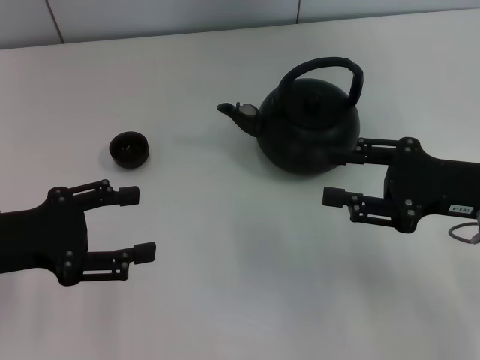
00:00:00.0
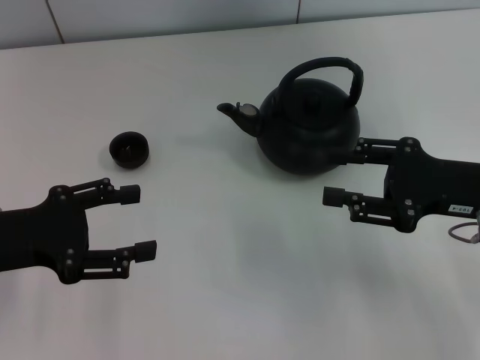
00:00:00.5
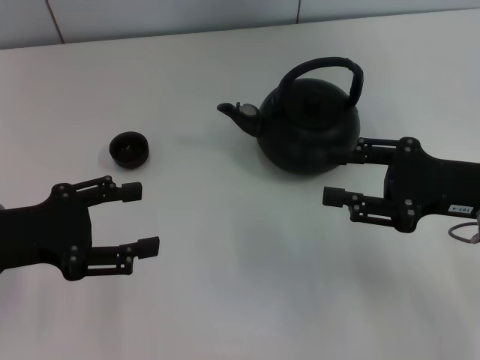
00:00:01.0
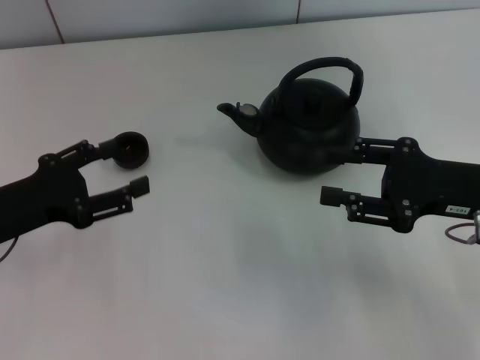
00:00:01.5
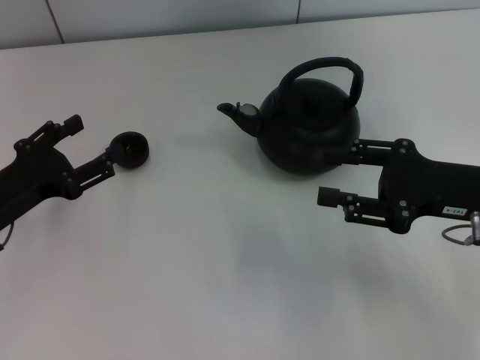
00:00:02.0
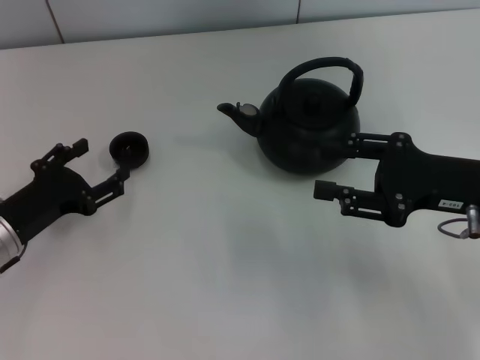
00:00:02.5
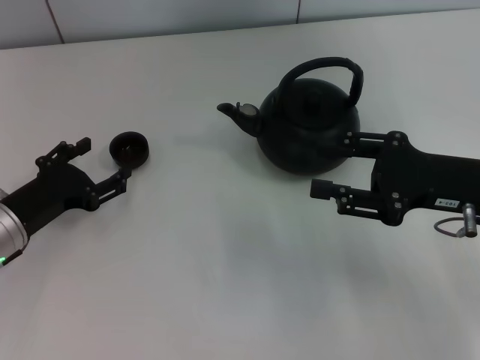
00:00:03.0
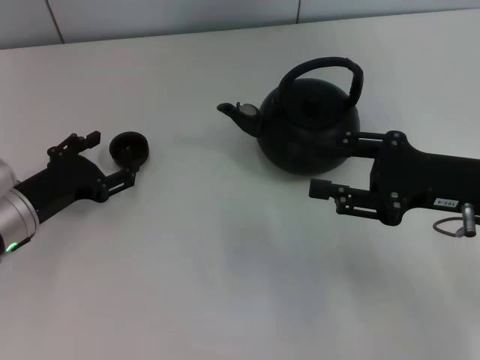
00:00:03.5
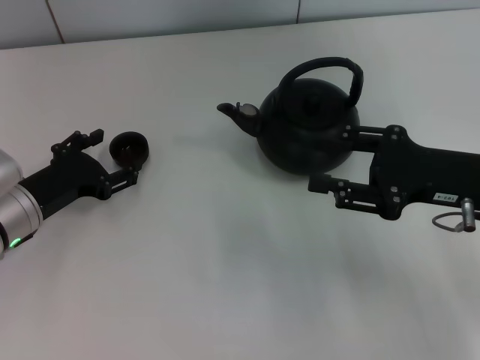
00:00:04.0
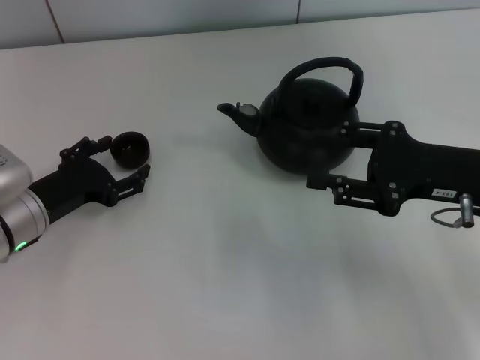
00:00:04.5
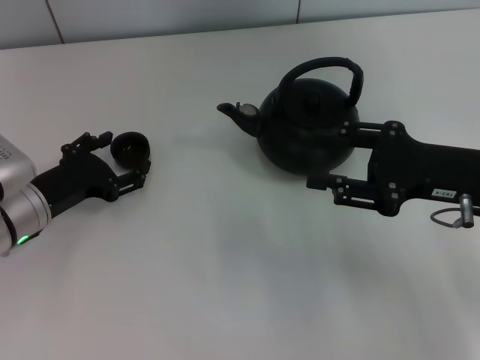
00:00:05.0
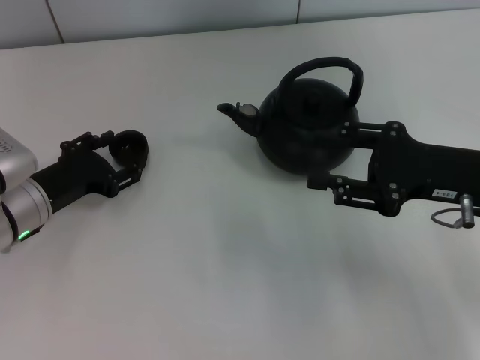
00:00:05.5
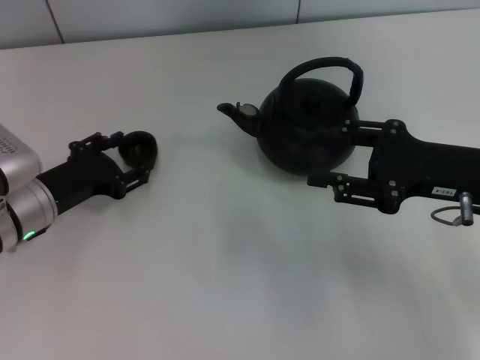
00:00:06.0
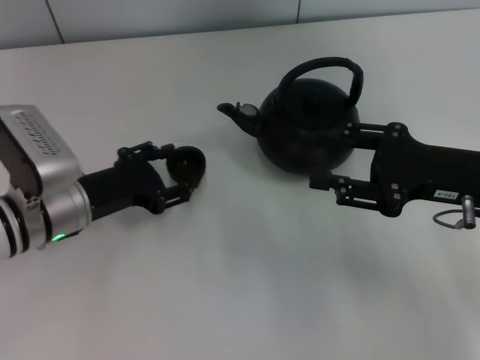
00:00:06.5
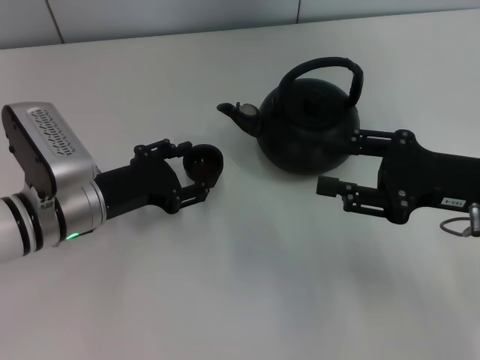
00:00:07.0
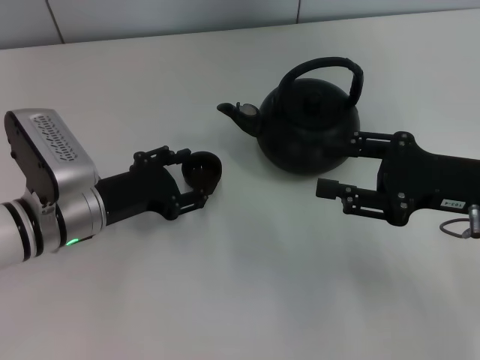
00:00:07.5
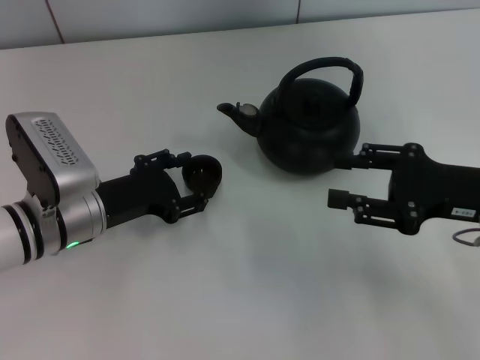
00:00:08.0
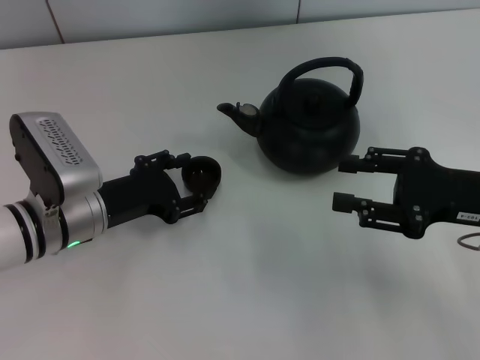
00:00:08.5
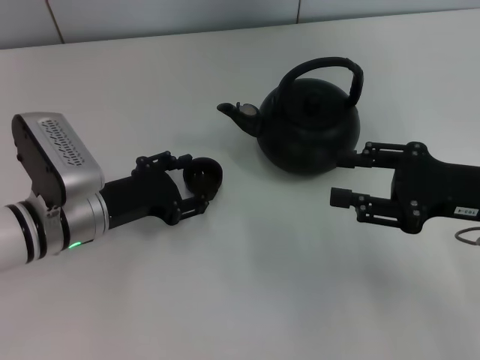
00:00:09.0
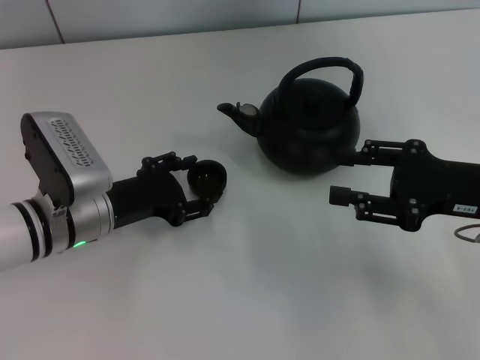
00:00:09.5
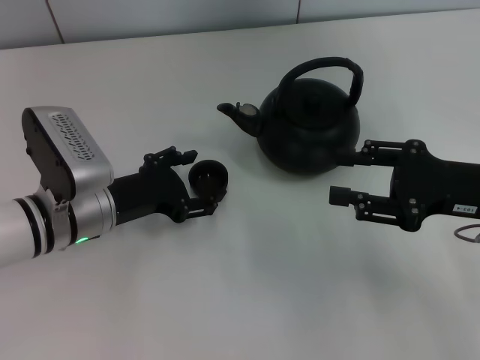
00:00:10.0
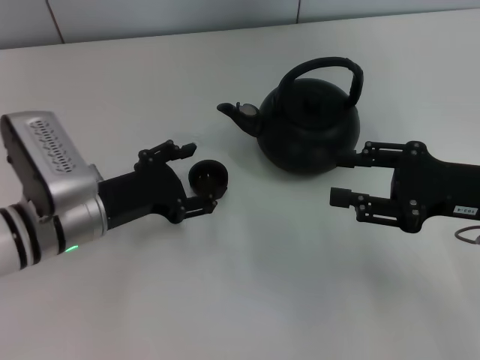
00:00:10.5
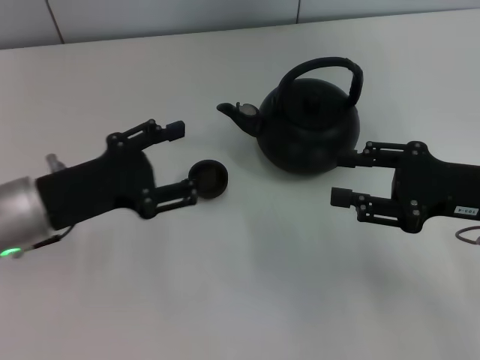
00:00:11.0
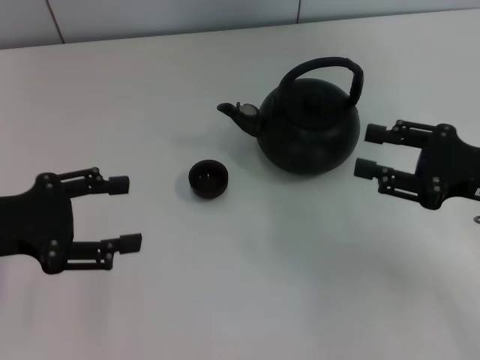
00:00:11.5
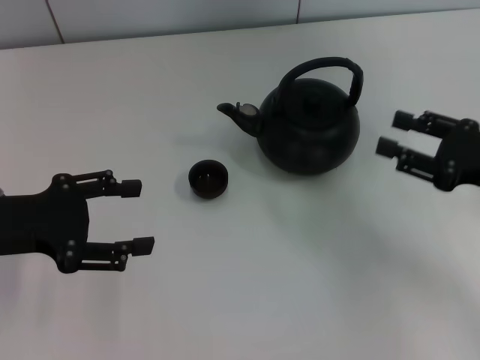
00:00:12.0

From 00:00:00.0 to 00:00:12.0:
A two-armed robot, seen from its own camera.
Task of the whole recording: Grasp the handle of the teapot with one hand and pour tea into the teacup.
Step, from 00:00:00.0 to 00:00:06.0: Pick up the teacup with the left gripper.
Step, from 00:00:06.5 to 00:00:10.5: Place the teacup in the center of view with the left gripper.
From 00:00:00.0 to 00:00:02.0: The left gripper heads downward, covering roughly 5 cm.
From 00:00:02.0 to 00:00:04.0: The left gripper moves approximately 5 cm.
From 00:00:04.0 to 00:00:06.0: The left gripper closes up.
From 00:00:06.0 to 00:00:08.0: The grippers make only small movements.
From 00:00:08.0 to 00:00:10.0: The left gripper opens its fingers.
From 00:00:10.0 to 00:00:12.0: The left gripper travels to the left and upward by some 15 cm, and opens up.

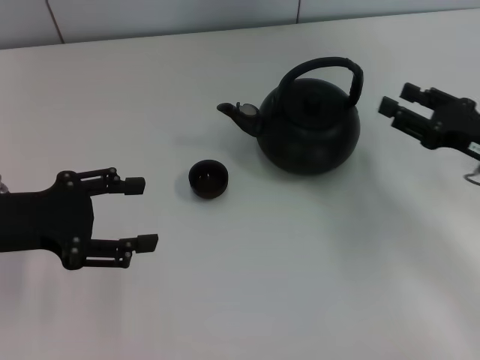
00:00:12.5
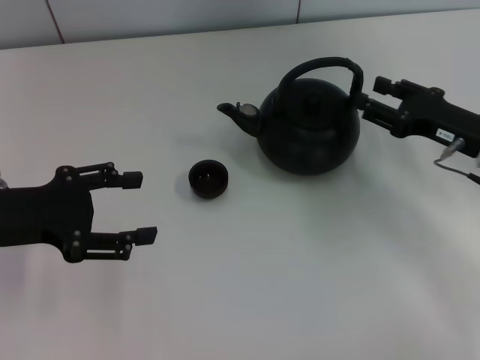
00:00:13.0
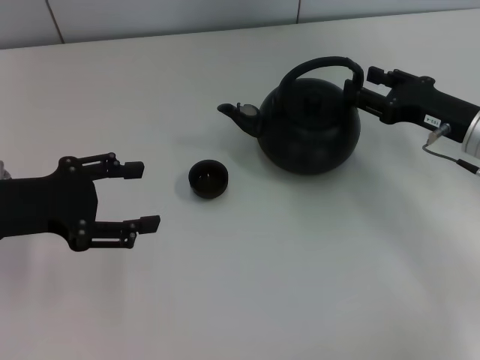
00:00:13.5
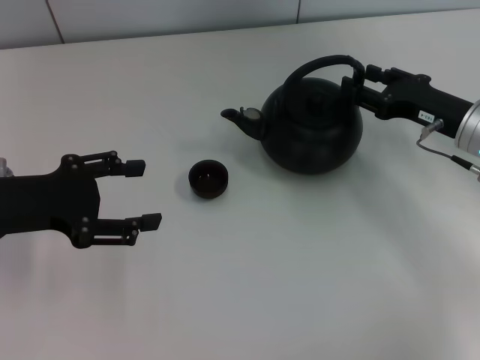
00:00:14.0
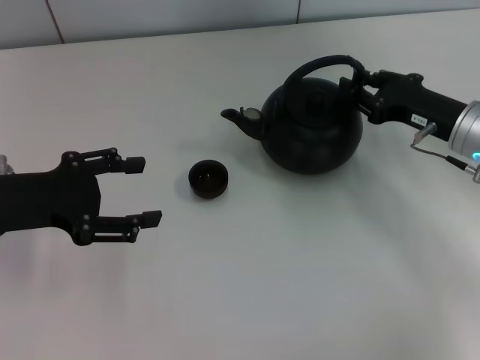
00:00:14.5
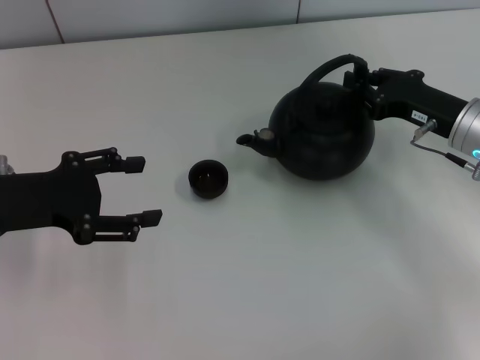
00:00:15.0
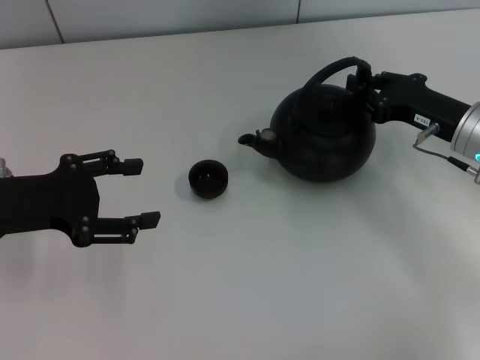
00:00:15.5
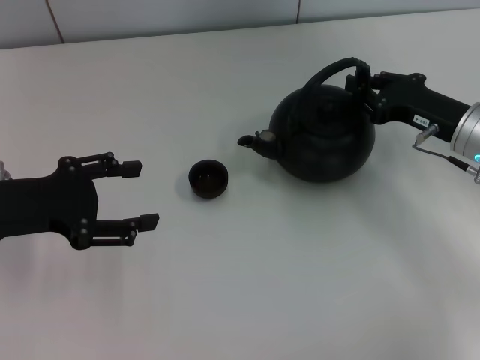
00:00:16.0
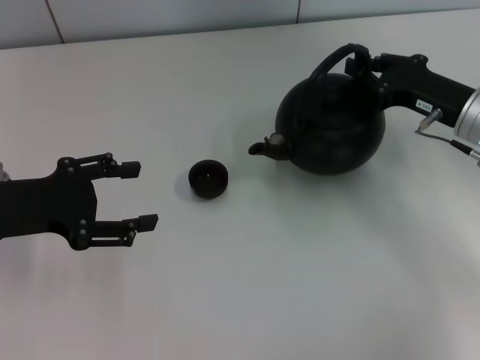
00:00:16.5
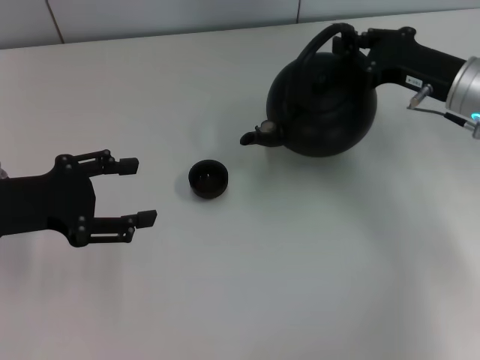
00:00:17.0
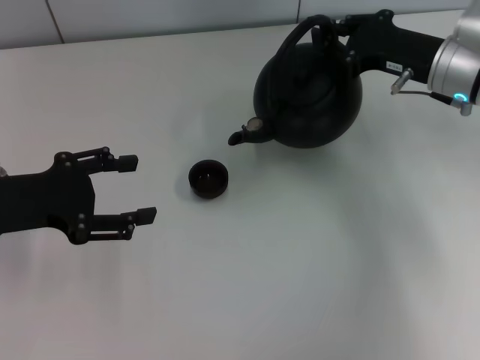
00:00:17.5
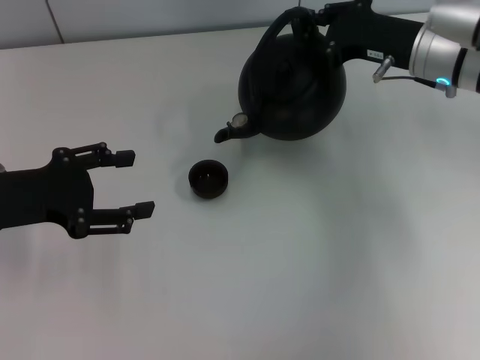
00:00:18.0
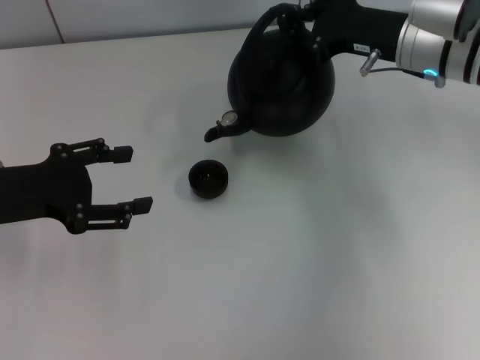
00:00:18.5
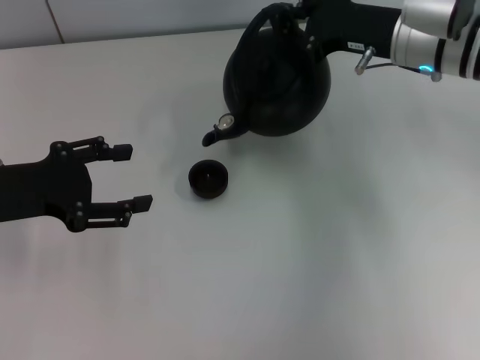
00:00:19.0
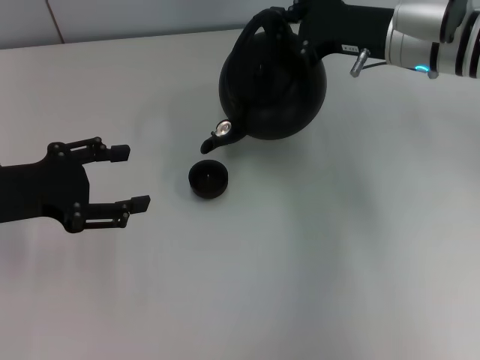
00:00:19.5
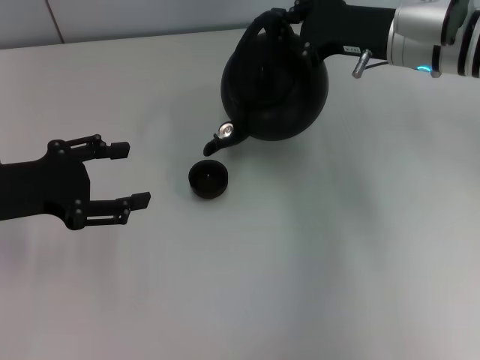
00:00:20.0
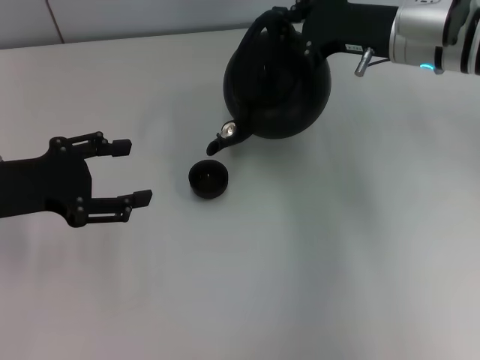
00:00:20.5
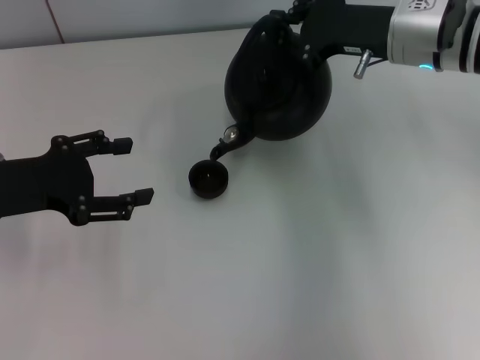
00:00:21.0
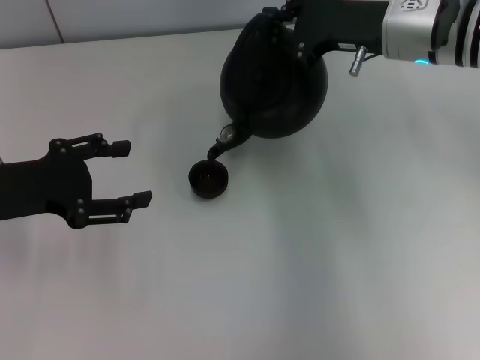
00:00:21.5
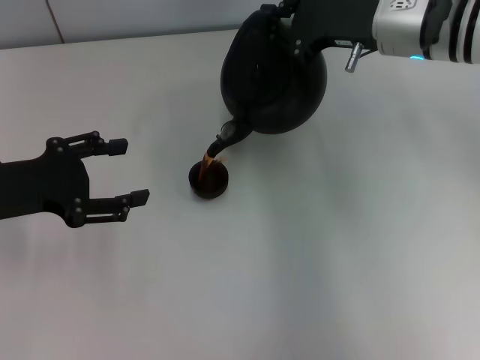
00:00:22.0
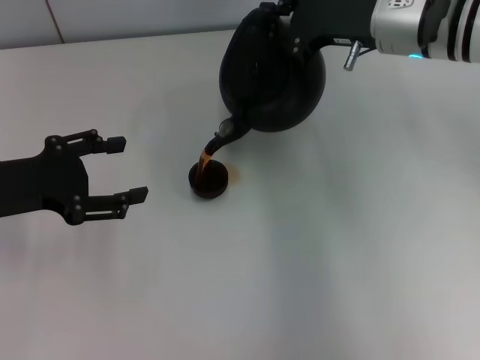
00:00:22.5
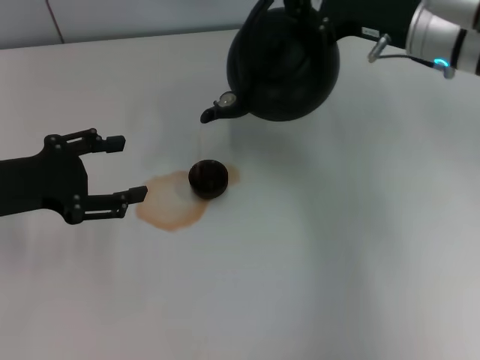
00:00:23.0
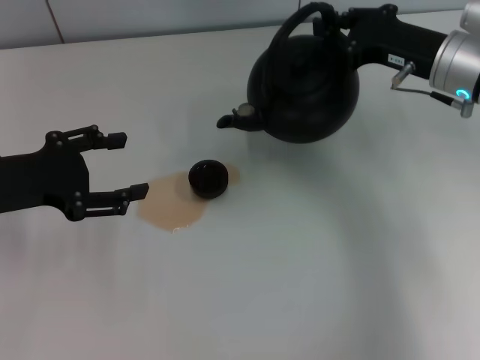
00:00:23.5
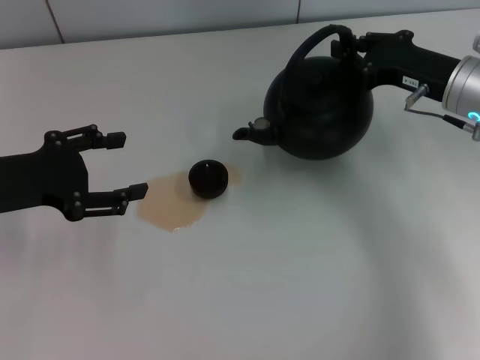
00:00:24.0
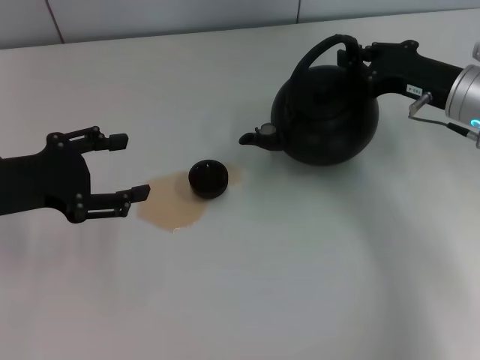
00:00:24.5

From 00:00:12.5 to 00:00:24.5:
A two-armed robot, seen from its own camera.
Task of the whole recording: Grasp the handle of the teapot with one hand and pour tea into the teacup.
Step, from 00:00:12.5 to 00:00:16.5: Pick up the teapot with the right gripper.
From 00:00:12.5 to 00:00:14.5: The right gripper travels forward by about 5 cm.
From 00:00:14.5 to 00:00:16.5: The right gripper closes.
From 00:00:16.5 to 00:00:18.5: The right gripper goes roughly 10 cm forward, to the left and upward.
From 00:00:18.5 to 00:00:22.5: The grippers make only small movements.
From 00:00:22.5 to 00:00:24.5: The right gripper goes about 10 cm to the right, downward and backward.

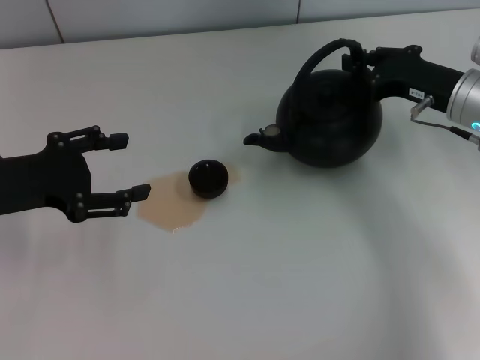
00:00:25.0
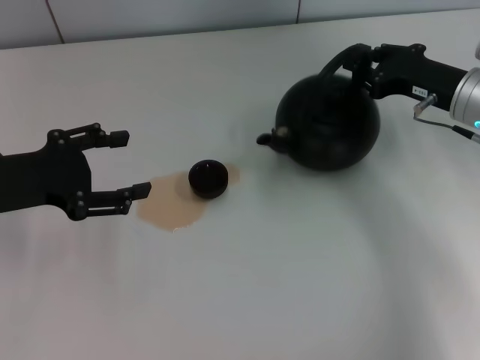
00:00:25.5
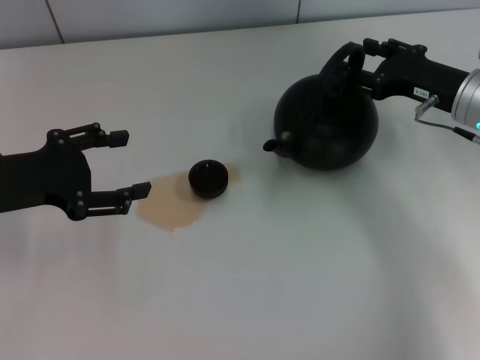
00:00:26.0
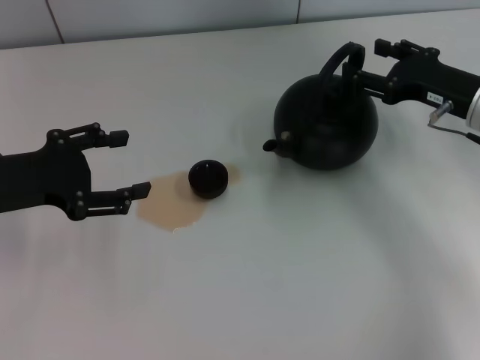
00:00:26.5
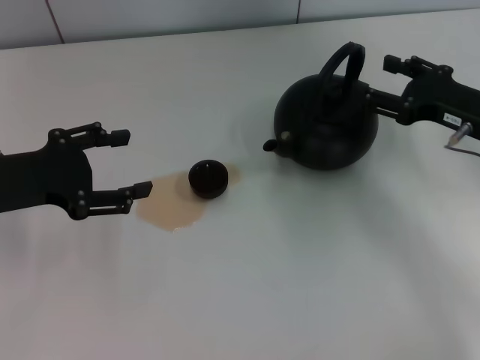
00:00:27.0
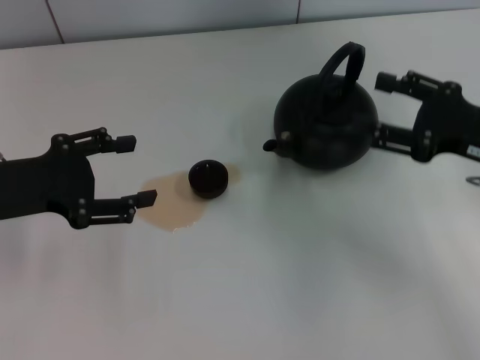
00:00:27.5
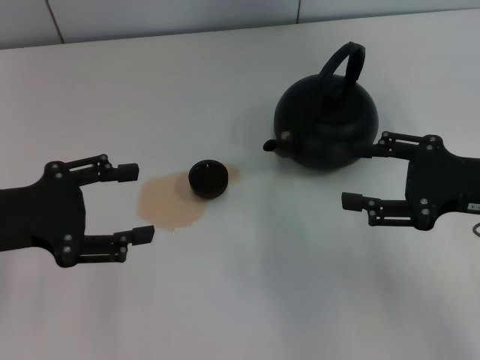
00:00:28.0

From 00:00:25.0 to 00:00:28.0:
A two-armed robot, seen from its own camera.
Task of the whole recording: Grasp the handle of the teapot with one hand and pour tea into the teacup.
Step, from 00:00:25.0 to 00:00:27.0: Put down the teapot with the right gripper.
From 00:00:25.0 to 00:00:26.5: The right gripper opens.
From 00:00:26.5 to 00:00:28.0: The right gripper heads backward, covering about 10 cm.
